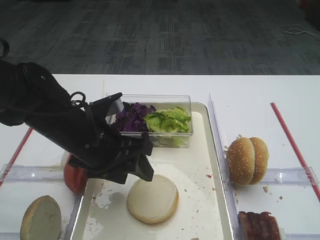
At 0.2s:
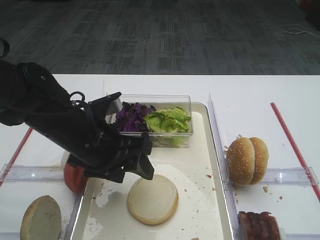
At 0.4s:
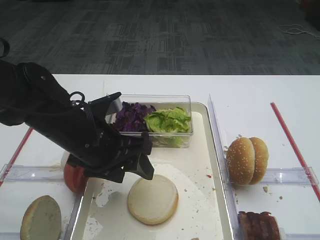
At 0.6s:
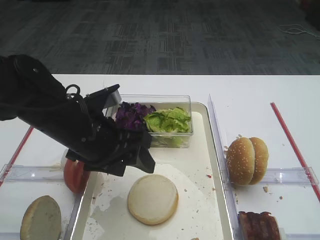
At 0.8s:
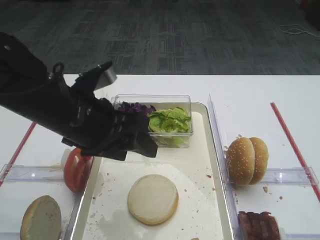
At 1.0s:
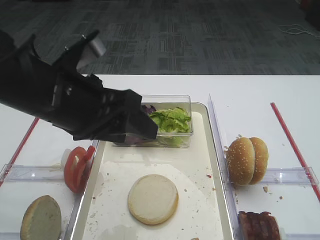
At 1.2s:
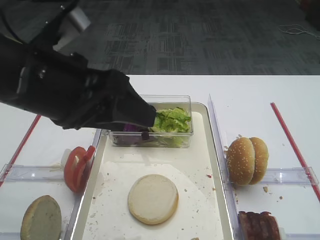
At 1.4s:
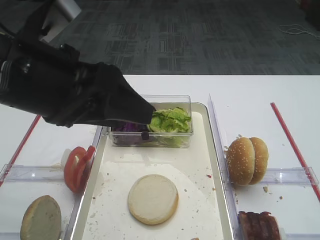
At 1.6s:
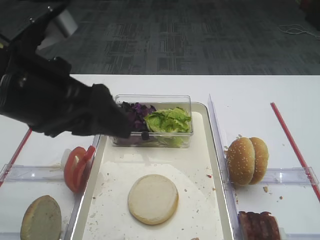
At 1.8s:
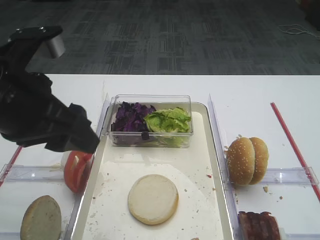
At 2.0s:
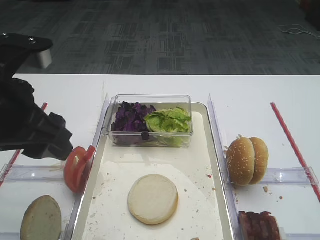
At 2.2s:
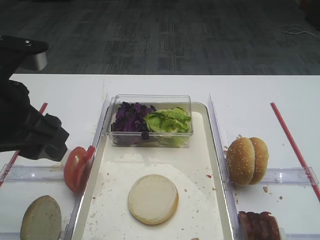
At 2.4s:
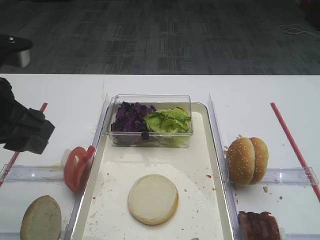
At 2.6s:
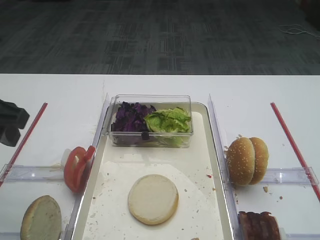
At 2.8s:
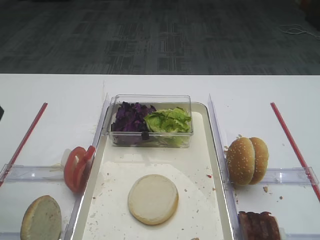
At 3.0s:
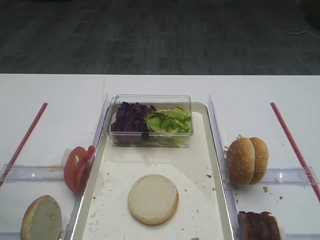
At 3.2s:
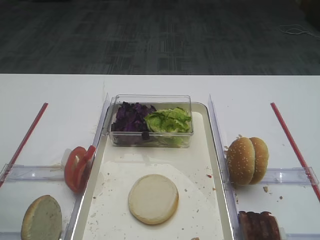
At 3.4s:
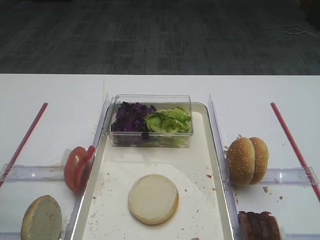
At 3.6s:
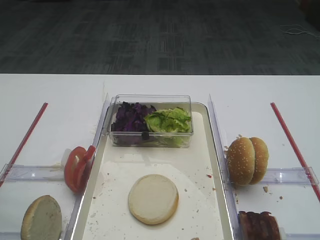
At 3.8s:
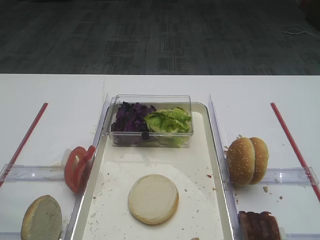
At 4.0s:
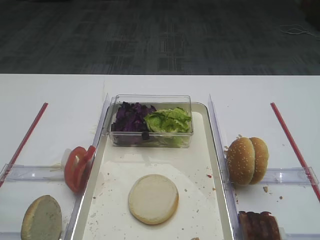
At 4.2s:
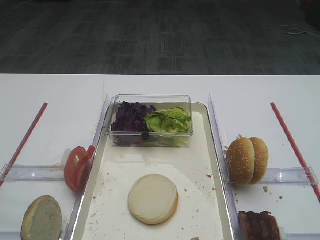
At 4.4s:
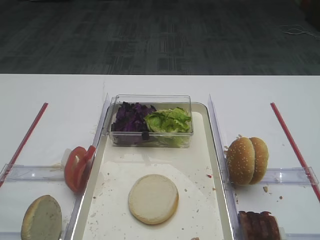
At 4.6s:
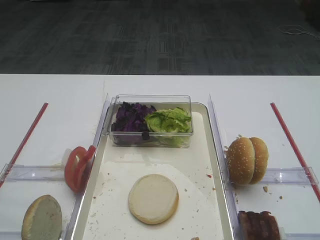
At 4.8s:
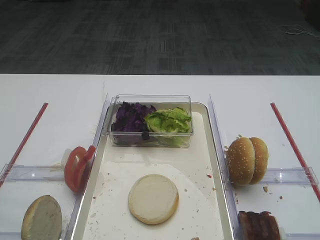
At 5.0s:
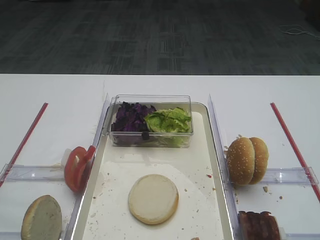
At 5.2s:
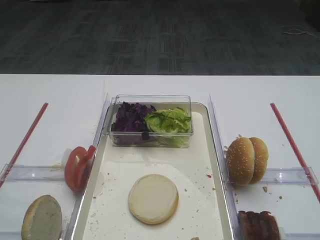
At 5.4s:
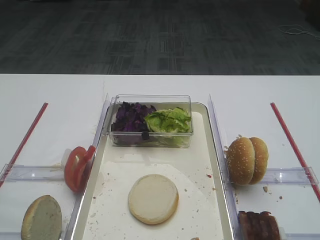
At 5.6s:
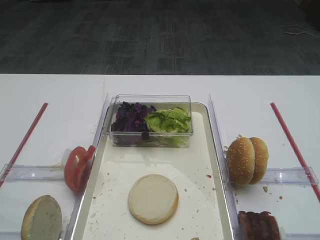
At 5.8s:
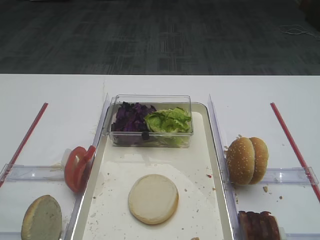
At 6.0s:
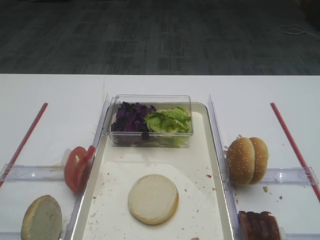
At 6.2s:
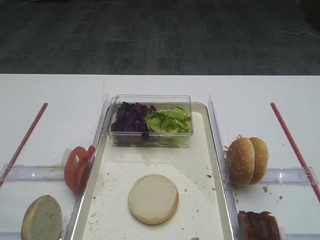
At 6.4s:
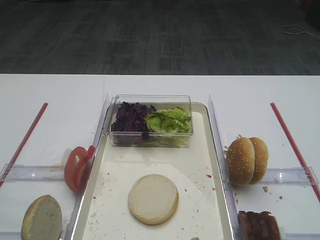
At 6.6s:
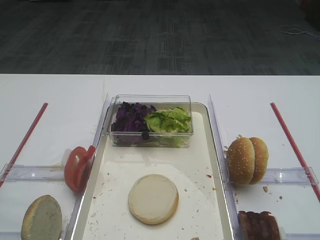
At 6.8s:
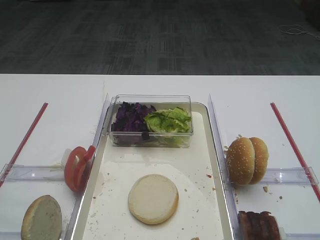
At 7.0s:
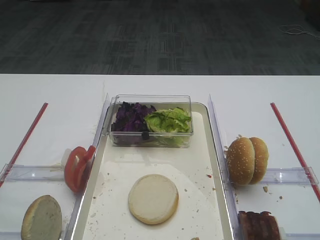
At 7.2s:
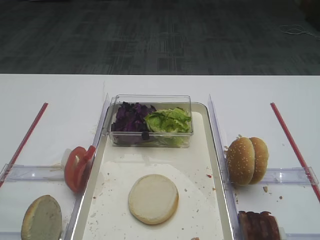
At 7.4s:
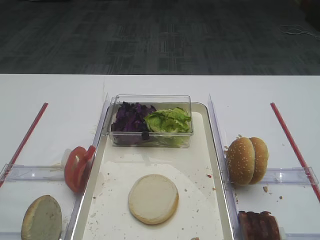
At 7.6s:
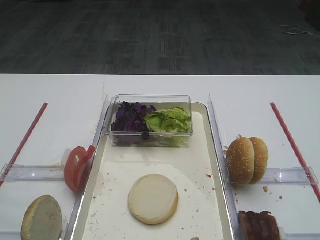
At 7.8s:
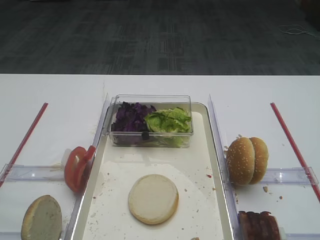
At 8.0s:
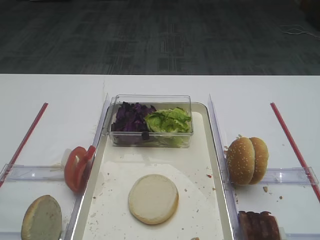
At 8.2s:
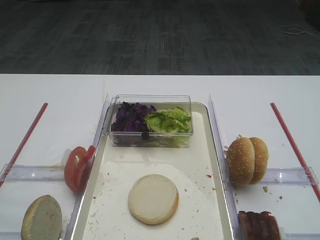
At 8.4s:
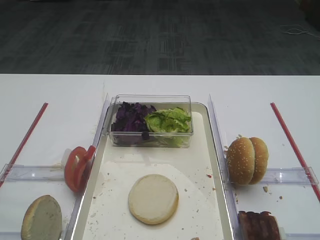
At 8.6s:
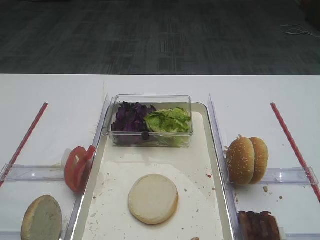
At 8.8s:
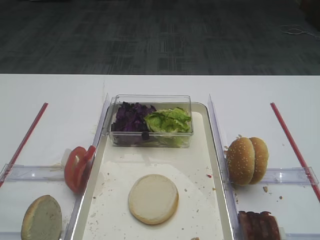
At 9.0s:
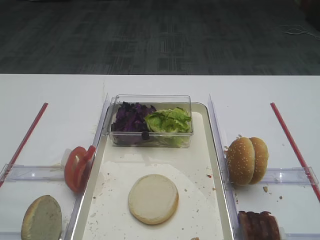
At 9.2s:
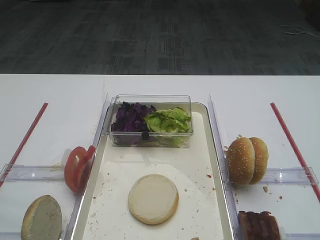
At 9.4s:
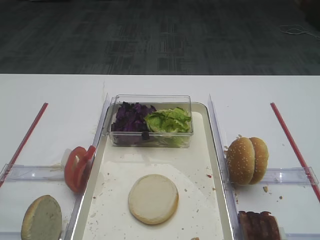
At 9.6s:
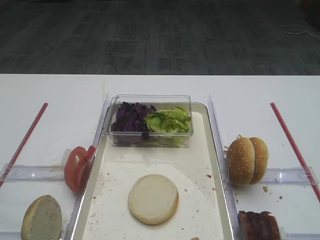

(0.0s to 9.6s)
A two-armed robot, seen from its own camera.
0.0s - 1.6s: The left gripper goes some 15 cm upward and backward.
1.6s - 3.2s: The left gripper travels to the left by approximately 15 cm.
6.4s - 9.6s: Both grippers stay put.

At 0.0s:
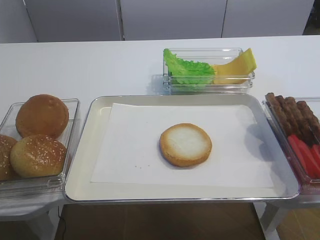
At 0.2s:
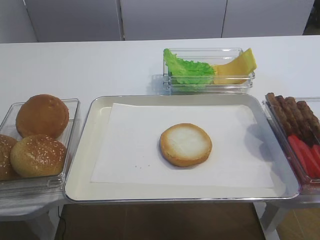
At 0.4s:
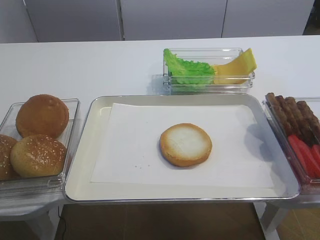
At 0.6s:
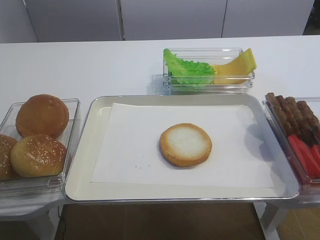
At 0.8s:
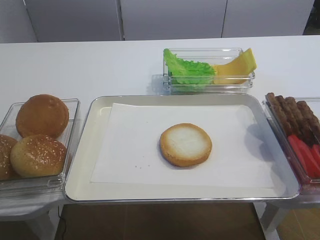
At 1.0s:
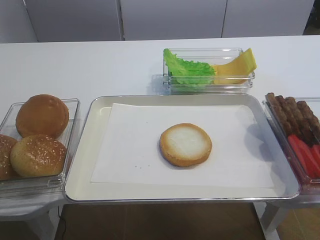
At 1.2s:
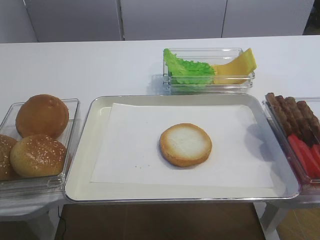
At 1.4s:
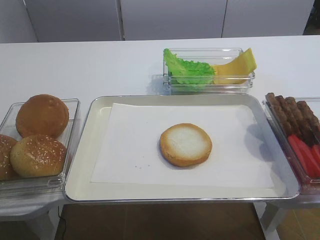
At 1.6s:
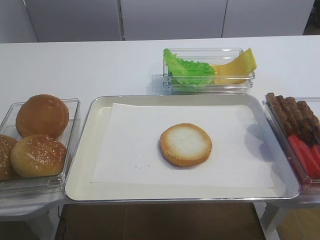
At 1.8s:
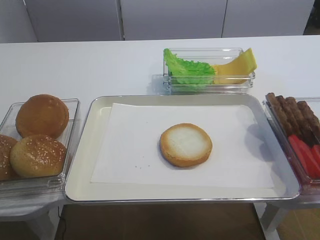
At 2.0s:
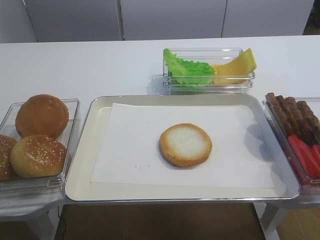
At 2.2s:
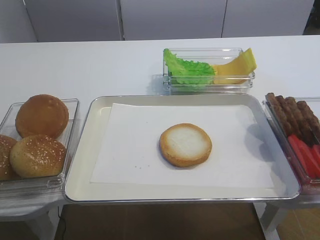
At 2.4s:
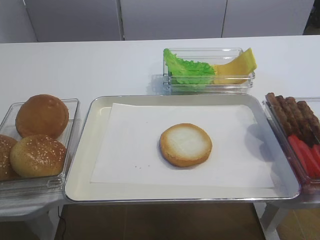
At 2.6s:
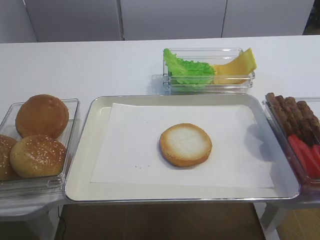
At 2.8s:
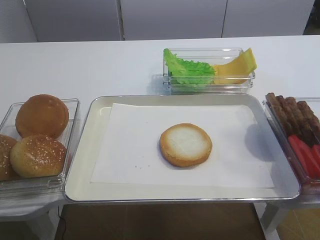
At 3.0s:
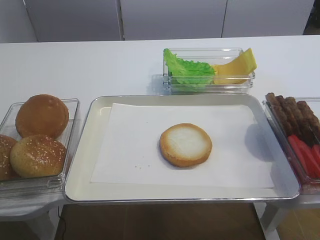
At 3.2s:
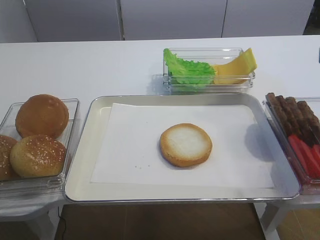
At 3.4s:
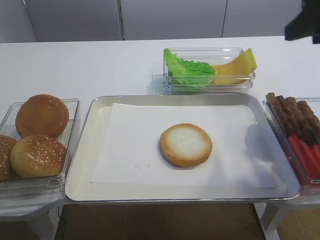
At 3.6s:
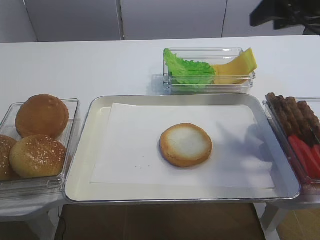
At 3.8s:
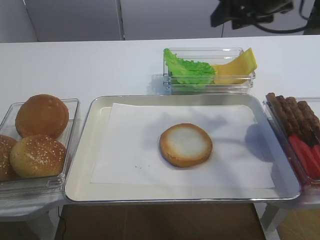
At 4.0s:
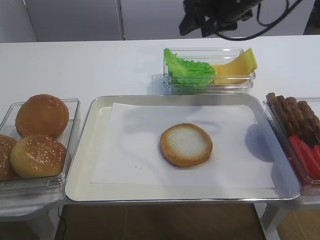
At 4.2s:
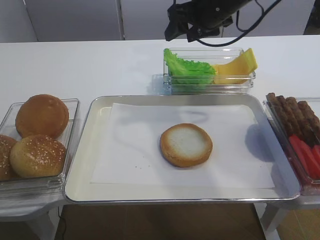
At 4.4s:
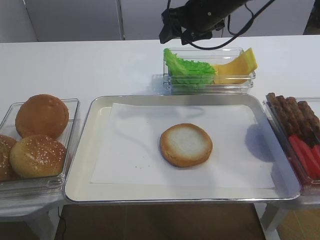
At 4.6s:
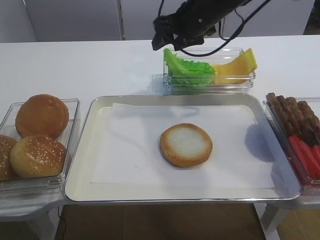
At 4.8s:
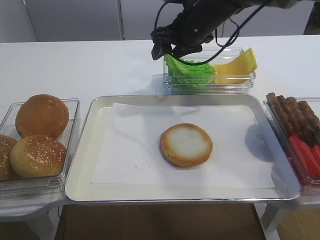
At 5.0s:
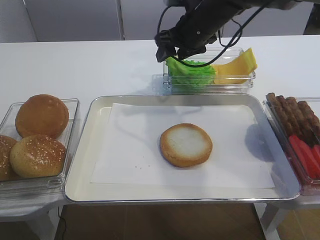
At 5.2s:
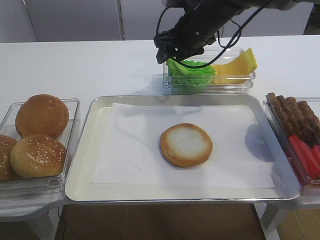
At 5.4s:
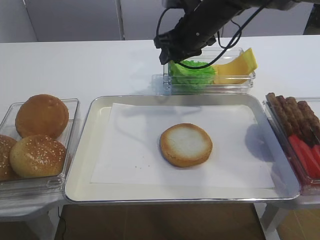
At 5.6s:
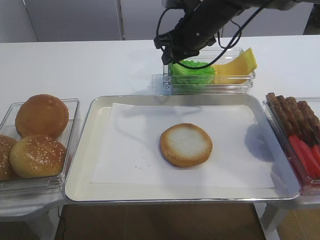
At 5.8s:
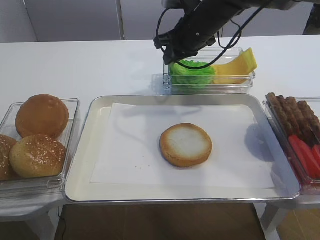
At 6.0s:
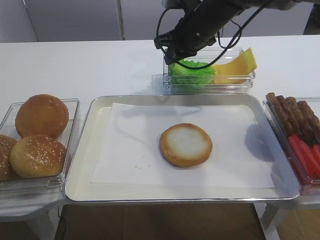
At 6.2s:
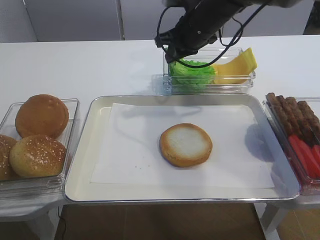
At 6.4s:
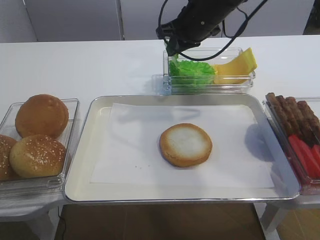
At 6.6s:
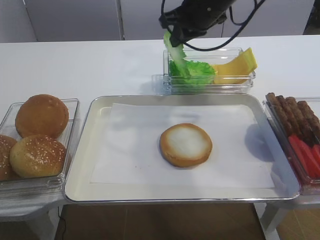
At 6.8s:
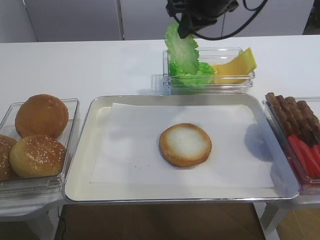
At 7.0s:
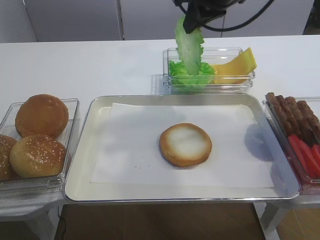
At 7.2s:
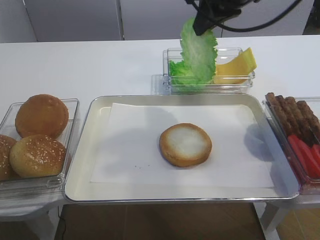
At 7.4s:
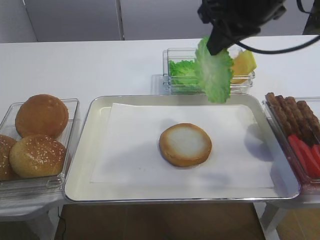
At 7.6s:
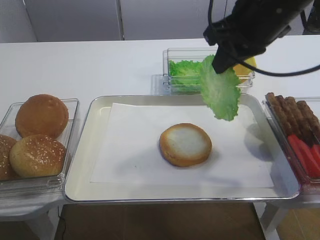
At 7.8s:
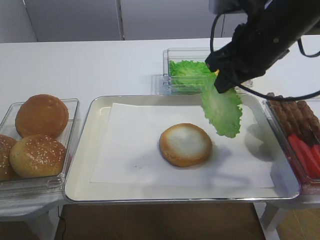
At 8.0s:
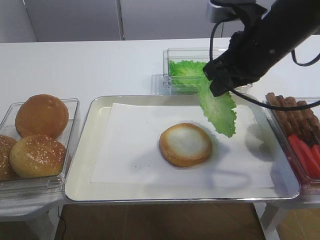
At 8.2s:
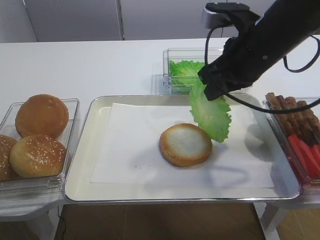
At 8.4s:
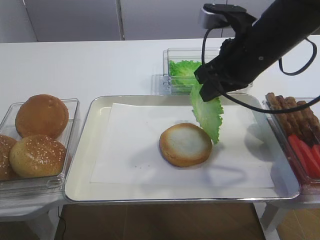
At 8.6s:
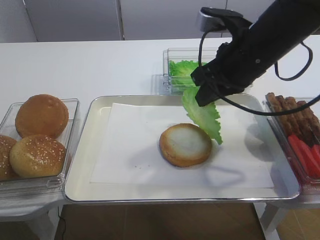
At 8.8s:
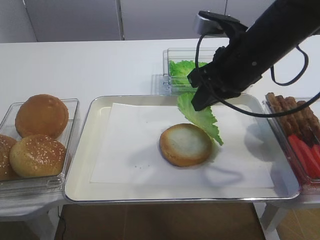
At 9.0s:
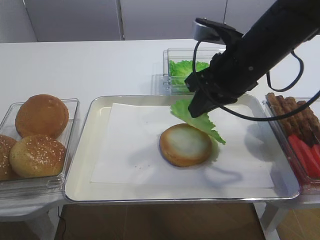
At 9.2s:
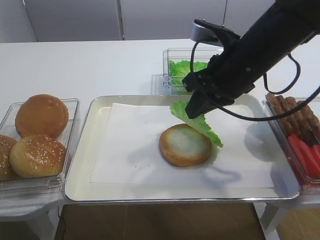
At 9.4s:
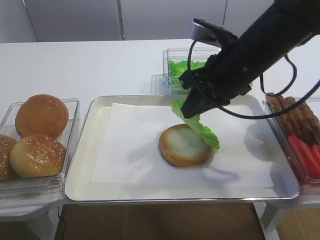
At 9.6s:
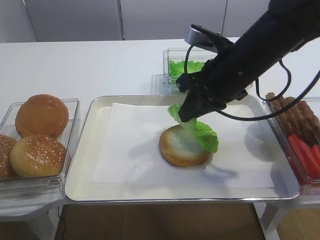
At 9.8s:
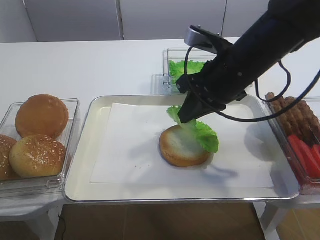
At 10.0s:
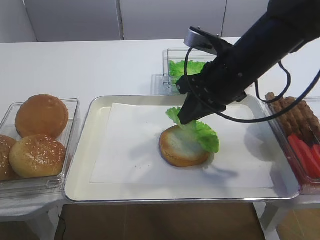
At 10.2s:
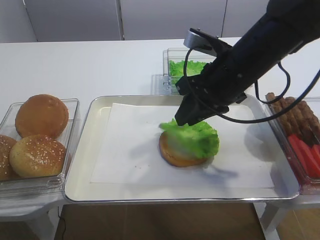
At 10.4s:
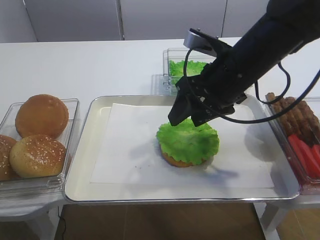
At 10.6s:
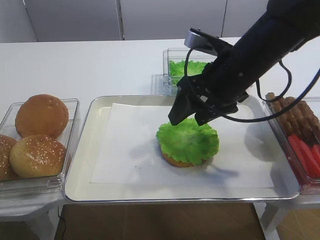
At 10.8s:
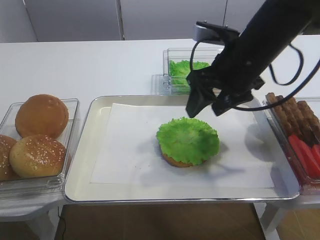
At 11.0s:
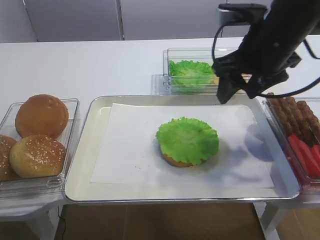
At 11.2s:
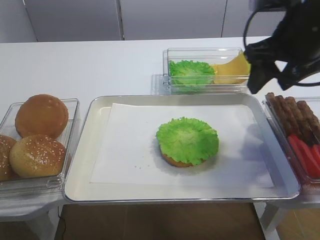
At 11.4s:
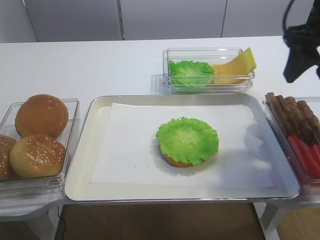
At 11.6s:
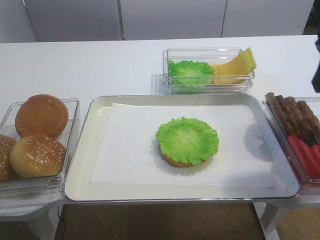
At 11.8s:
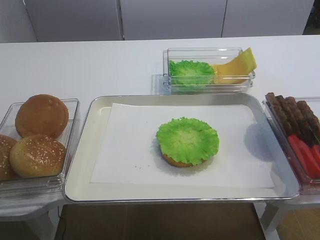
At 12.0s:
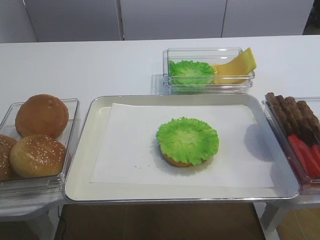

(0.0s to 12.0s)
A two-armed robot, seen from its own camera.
Step, 0.0s - 6.6s: Pick up the lettuce leaf with the right gripper.
Step, 6.8s - 10.4s: Place the lettuce leaf on the bread slice with the right gripper.
3.0s - 4.4s: The right gripper goes approximately 35 cm forward and to the left.
4.4s - 6.0s: The right gripper closes.
6.0s - 7.6s: The right gripper shifts roughly 20 cm backward, upward and to the right.
7.6s - 9.0s: The right gripper moves downward, some 5 cm.
9.0s - 10.4s: The right gripper opens its fingers.
10.4s - 12.0s: The right gripper is displaced backward, to the right and upward by some 25 cm.

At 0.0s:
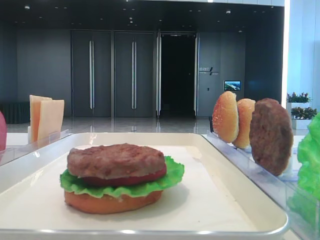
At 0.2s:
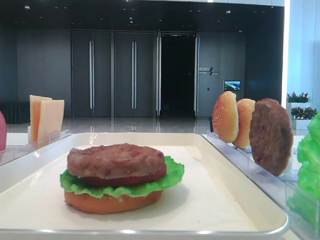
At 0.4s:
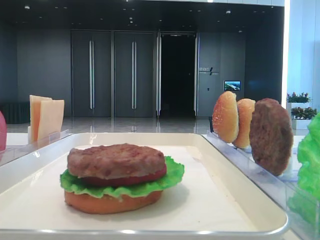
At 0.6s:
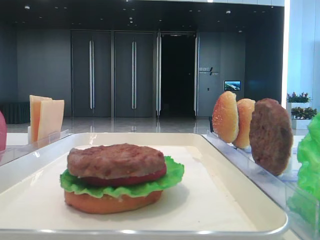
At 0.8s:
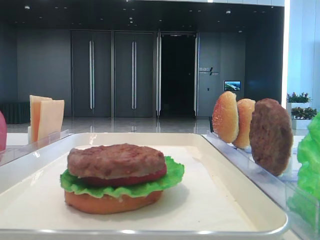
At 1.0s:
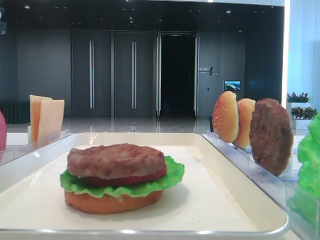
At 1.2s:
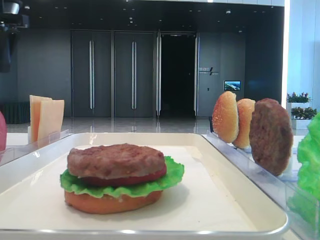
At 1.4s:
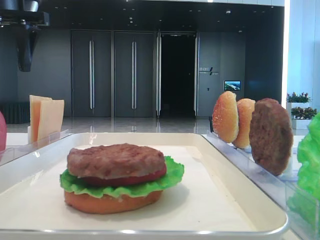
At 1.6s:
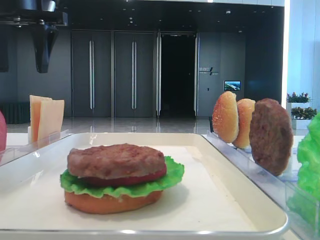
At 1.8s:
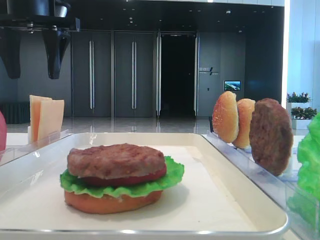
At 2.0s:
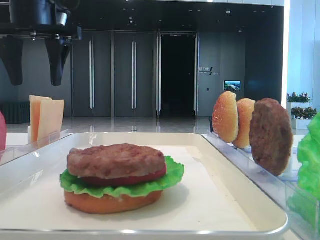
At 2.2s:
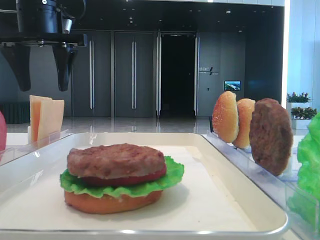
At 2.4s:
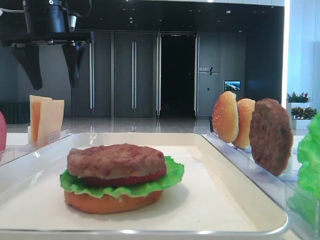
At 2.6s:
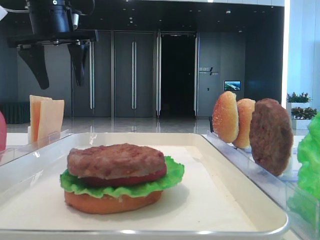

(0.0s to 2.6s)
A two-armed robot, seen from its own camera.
1.2s - 2.6s: The left gripper moves to the right, approximately 10 cm.
